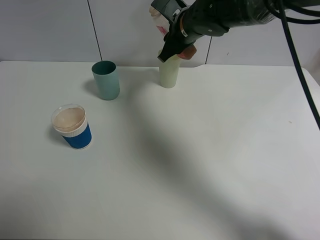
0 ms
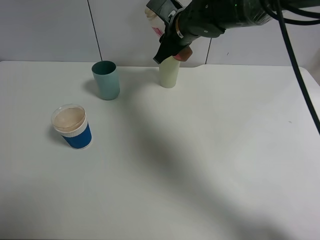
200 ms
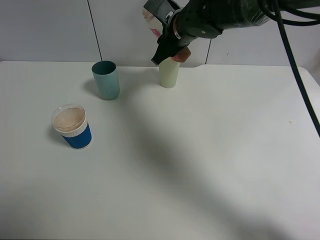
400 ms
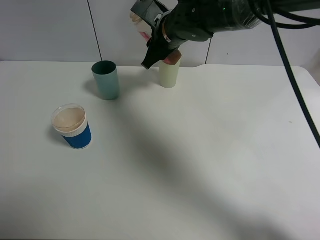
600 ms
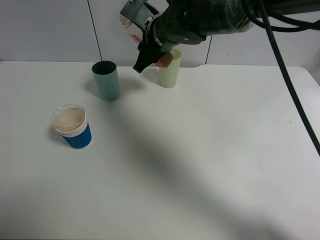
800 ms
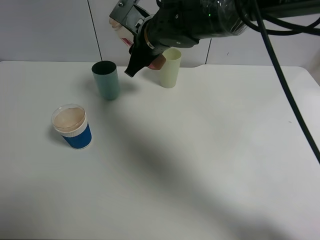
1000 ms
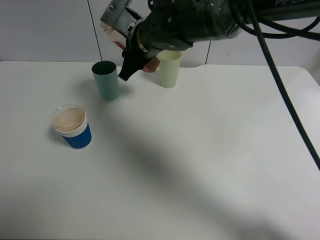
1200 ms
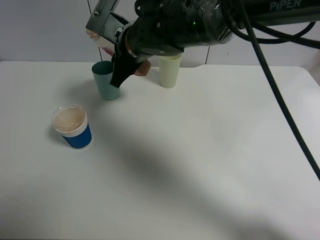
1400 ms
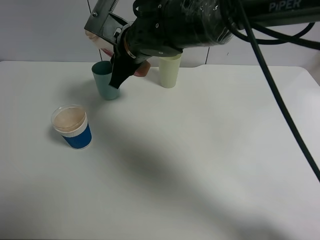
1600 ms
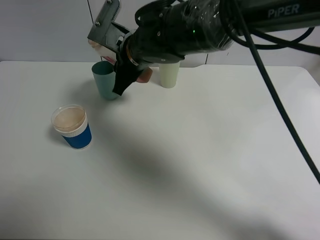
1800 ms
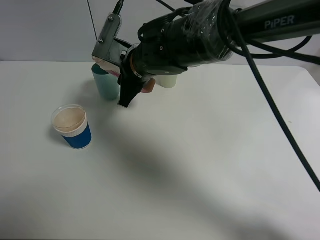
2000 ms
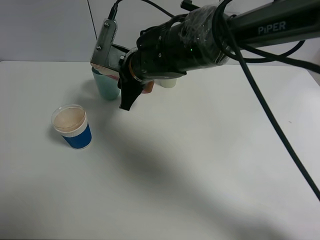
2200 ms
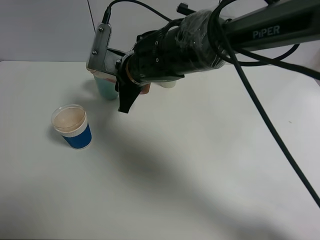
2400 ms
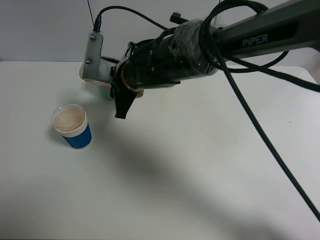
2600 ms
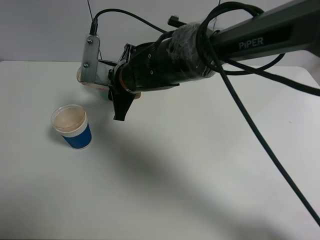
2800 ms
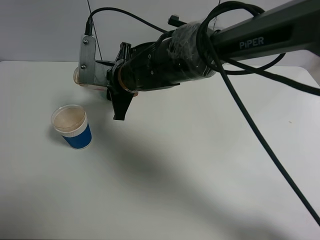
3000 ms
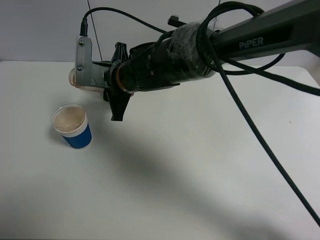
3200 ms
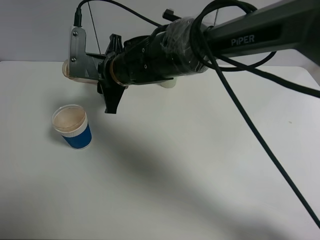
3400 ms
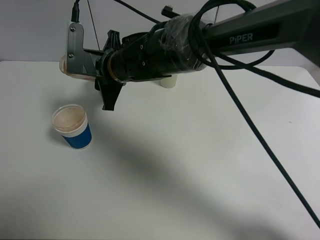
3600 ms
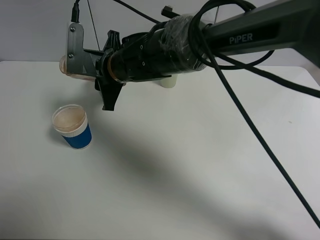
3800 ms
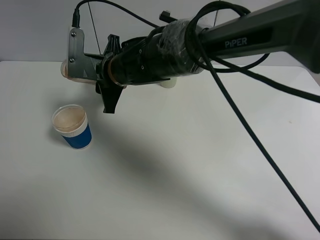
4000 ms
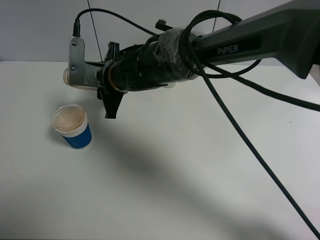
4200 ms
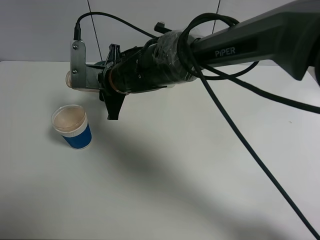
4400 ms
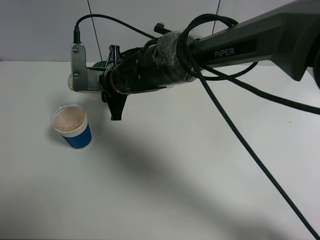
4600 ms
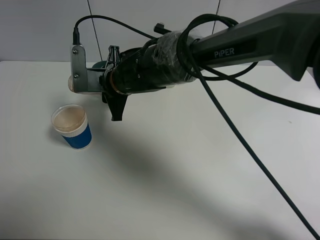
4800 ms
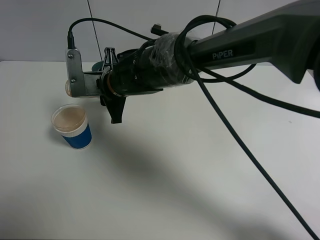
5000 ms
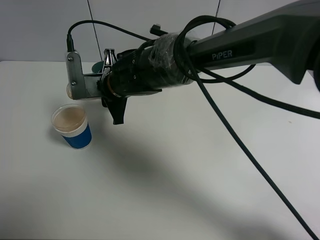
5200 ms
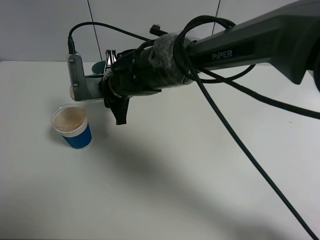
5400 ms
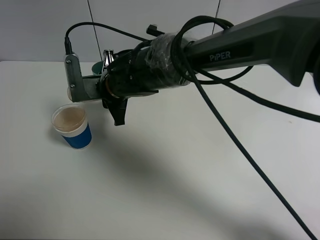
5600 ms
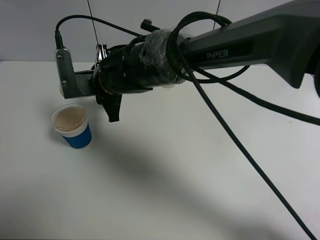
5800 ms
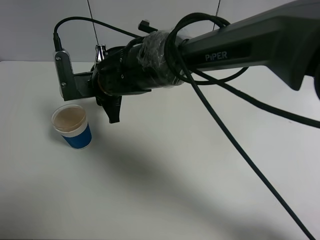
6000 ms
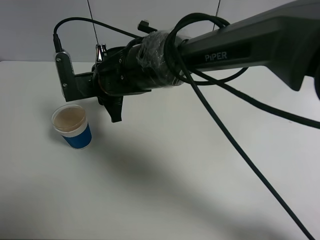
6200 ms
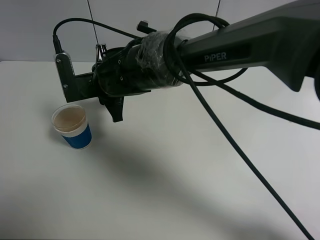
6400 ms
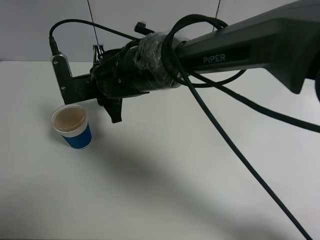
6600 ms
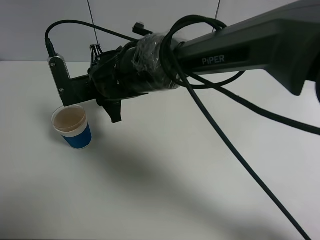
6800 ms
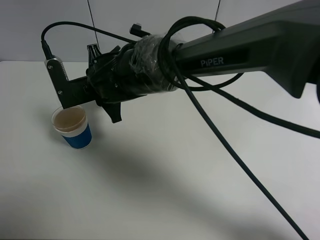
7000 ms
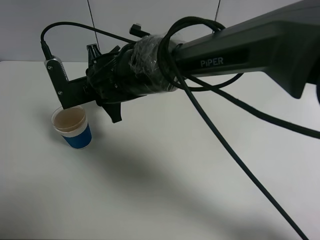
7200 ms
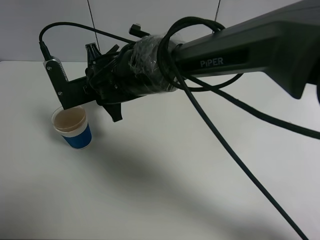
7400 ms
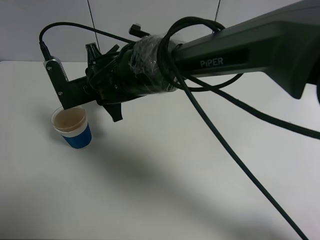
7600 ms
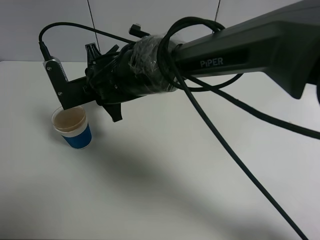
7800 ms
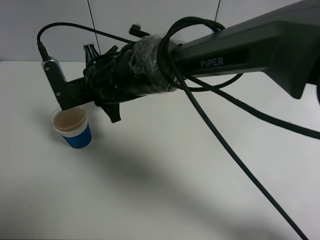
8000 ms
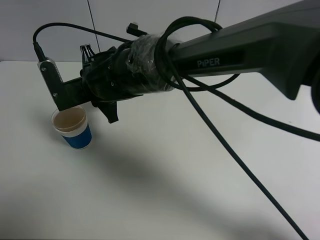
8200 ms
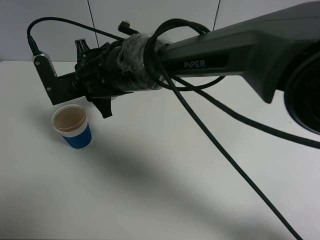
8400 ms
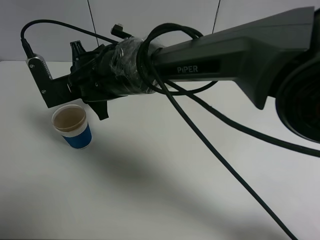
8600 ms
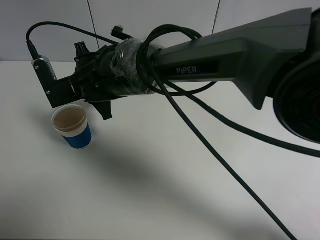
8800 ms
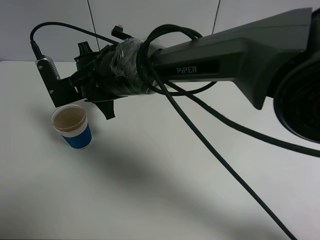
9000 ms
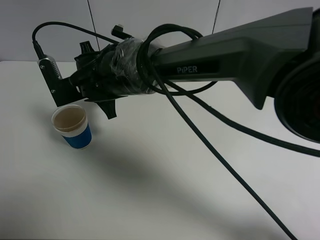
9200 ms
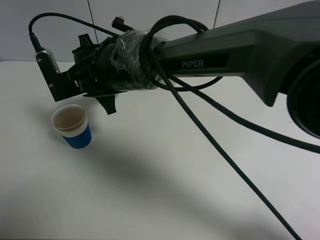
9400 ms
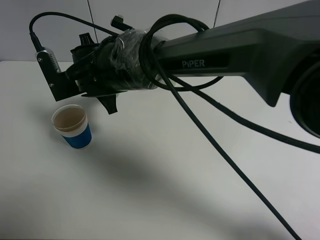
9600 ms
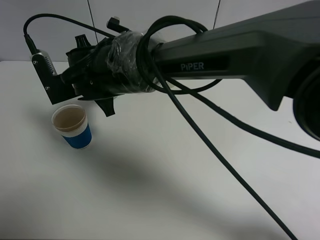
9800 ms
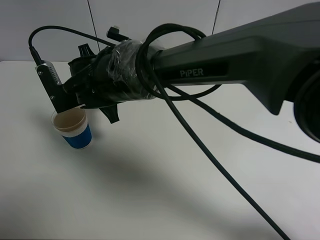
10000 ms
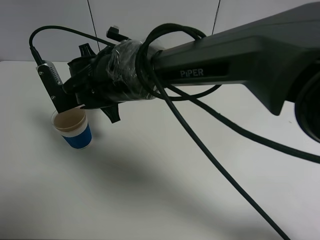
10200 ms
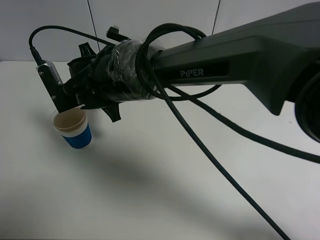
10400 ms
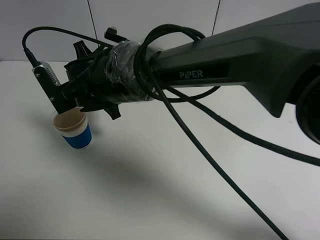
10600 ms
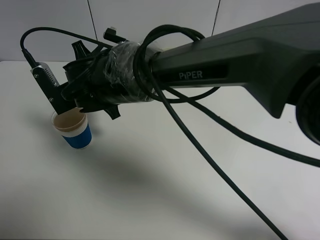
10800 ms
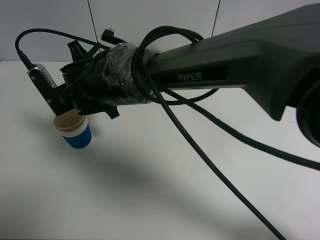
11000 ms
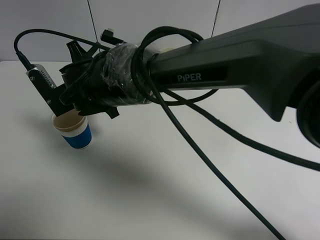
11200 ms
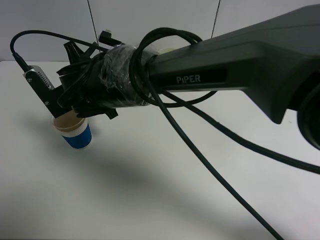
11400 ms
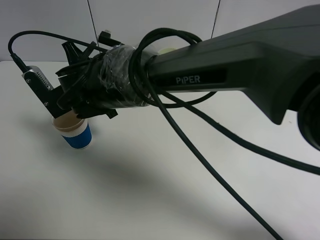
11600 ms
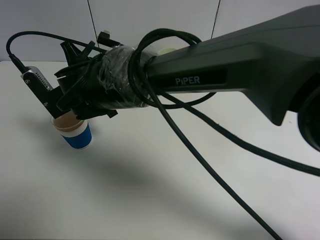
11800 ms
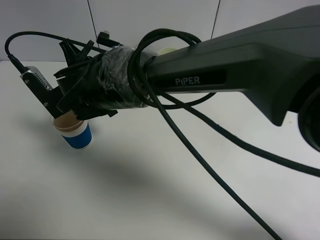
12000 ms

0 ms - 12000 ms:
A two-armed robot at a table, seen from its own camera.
Task of the whole recording: use a clamp to hold the bottle of the drink, pour the beverage into a random cup, then clamp the cup containing the drink and pour the drink into another random cup.
0 ms - 1600 ms: The right gripper goes about 15 cm to the left and backward.
1600 ms - 3000 ms: The right gripper heads downward, covering approximately 5 cm.
3000 ms - 6000 ms: The grippers stay close to where they were, moving slightly.
6000 ms - 7600 ms: The grippers move only a little.
9000 ms - 10400 ms: The grippers stay close to where they were, moving slightly.

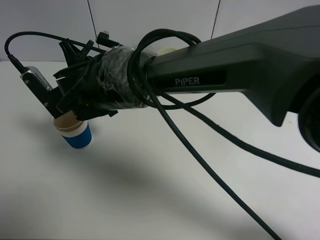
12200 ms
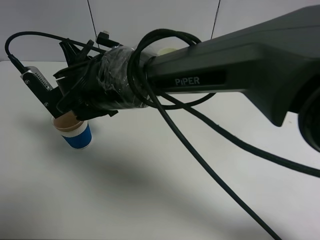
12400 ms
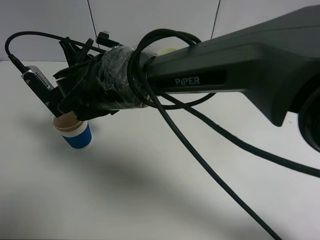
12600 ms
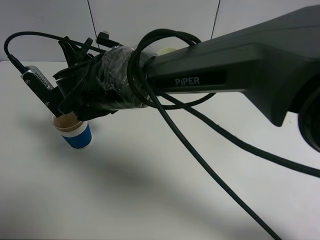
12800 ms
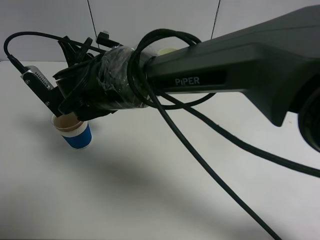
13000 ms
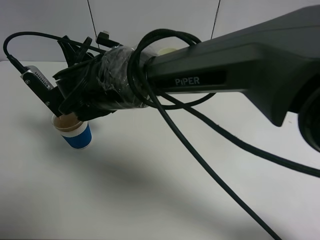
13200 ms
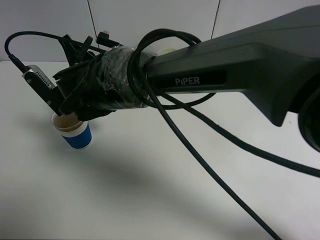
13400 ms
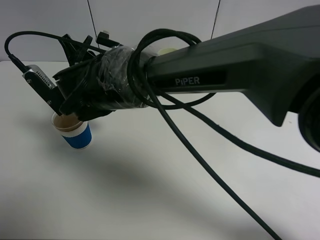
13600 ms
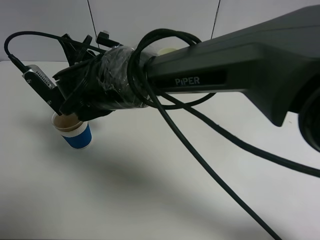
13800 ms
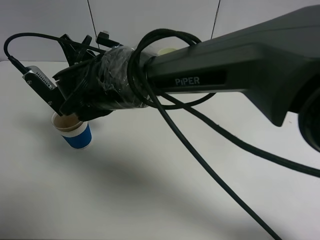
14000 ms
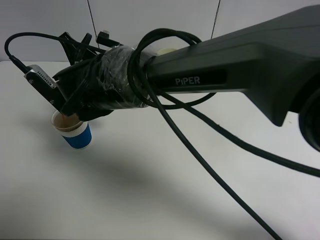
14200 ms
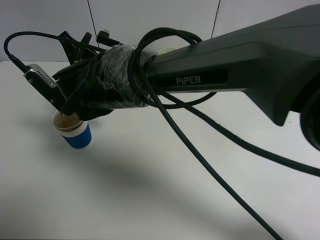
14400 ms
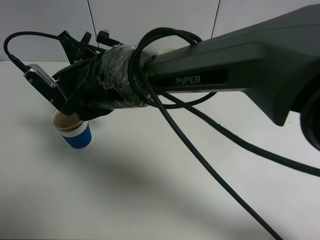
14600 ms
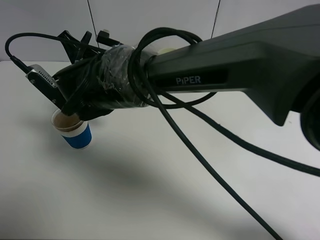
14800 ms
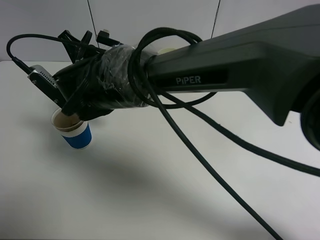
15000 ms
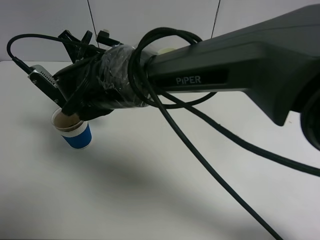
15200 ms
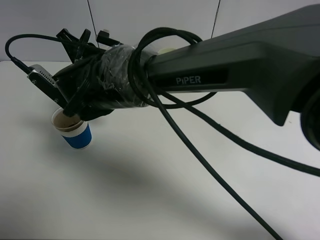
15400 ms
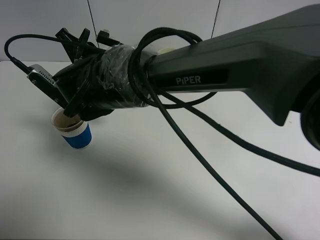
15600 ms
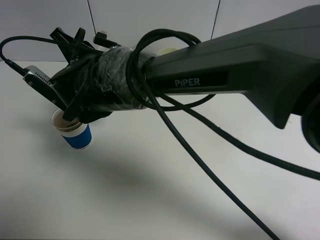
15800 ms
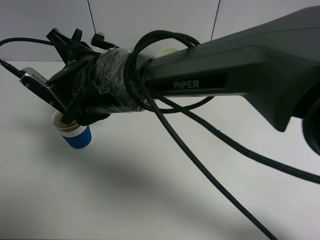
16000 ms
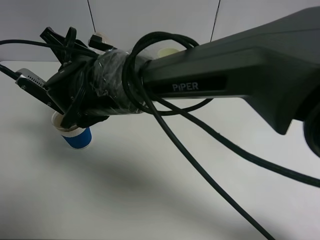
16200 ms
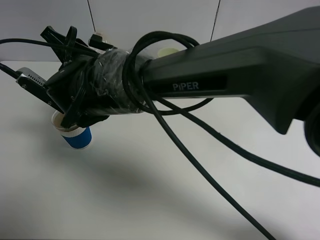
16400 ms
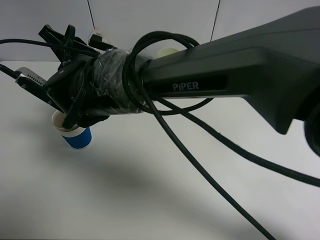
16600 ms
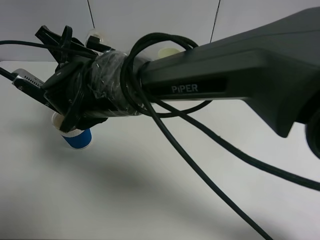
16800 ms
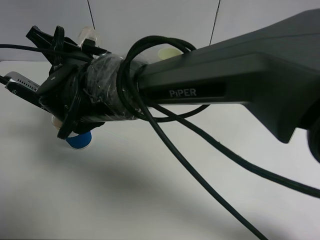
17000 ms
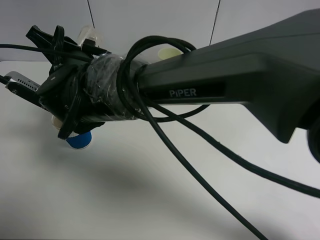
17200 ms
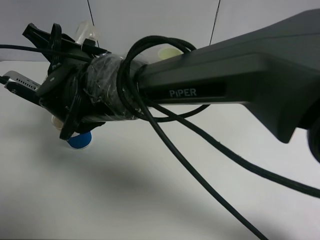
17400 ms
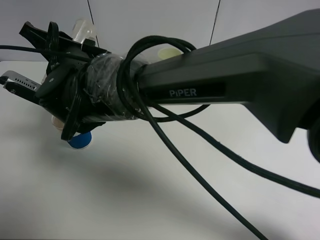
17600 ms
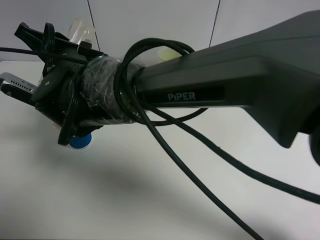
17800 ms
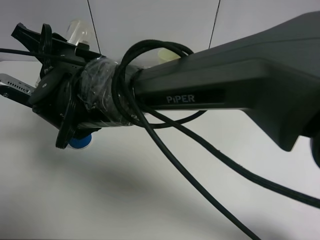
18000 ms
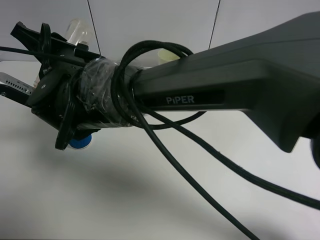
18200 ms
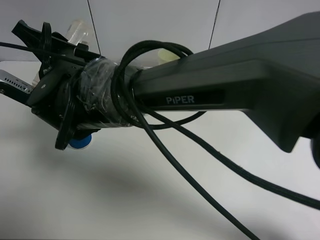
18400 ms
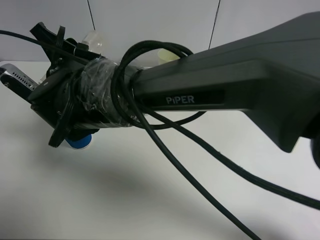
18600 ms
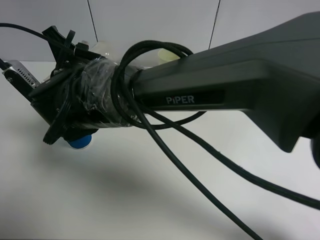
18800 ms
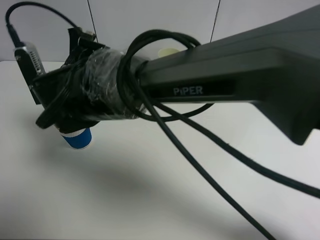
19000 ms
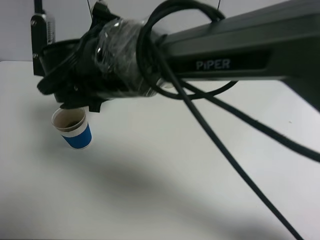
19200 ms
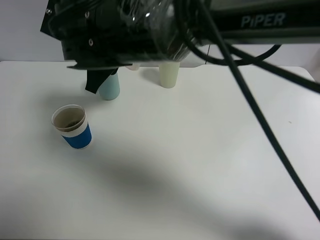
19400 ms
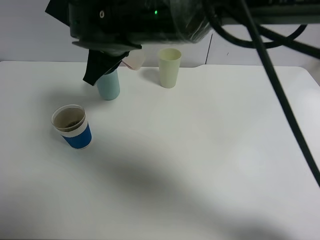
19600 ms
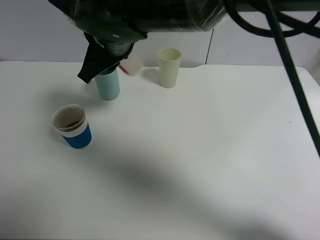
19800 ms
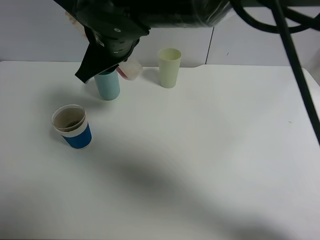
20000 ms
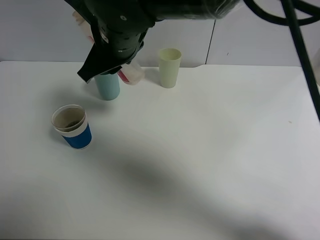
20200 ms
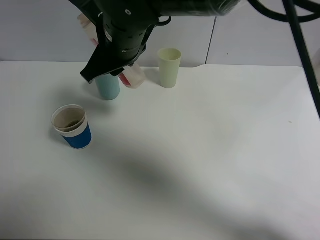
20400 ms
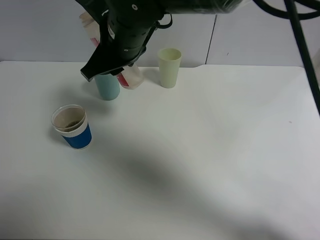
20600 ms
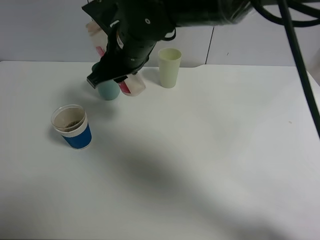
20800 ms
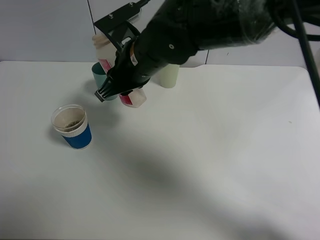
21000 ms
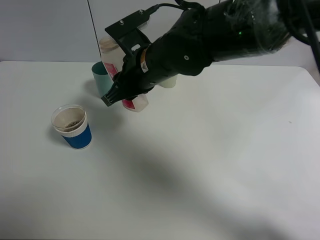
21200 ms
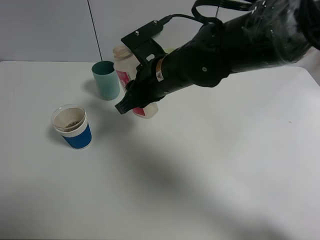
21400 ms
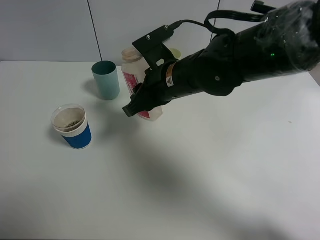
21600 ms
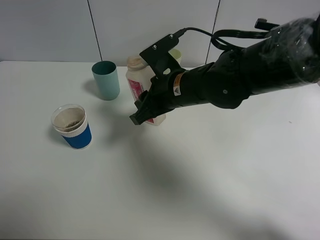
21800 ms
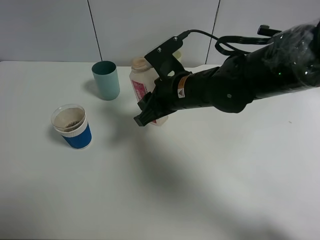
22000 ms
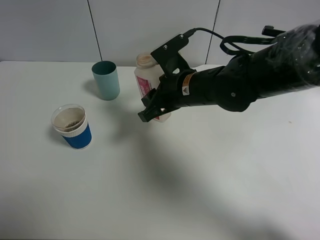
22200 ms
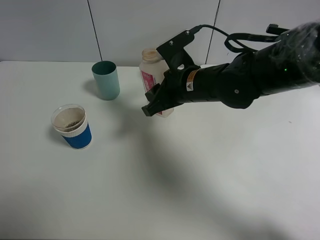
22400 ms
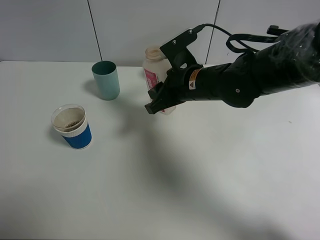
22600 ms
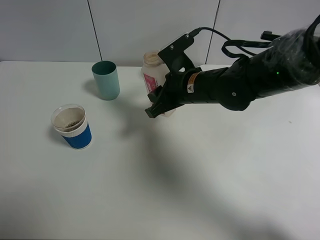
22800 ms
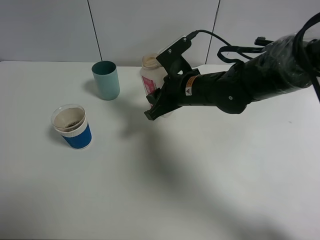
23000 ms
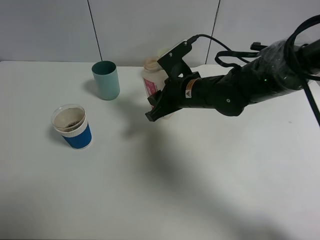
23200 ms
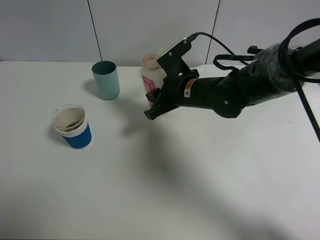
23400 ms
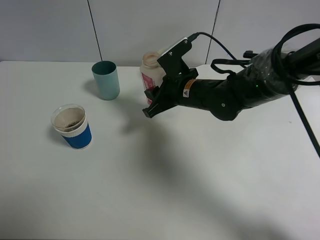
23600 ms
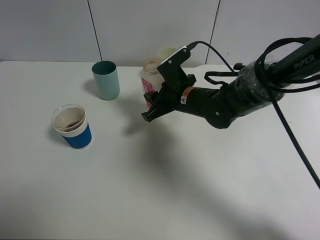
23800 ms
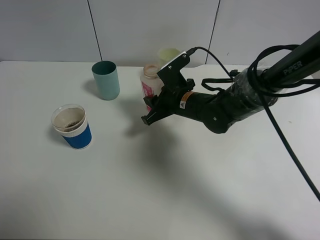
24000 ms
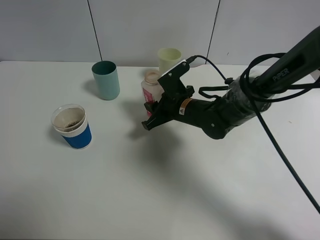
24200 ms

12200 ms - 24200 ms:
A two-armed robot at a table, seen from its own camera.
Task of the whole recording: use a clamp to hold the bottle of the drink, pour the beverage into a random cup, then clamp the cup containing the drink and pour the drink into another random cup.
Step, 12200 ms - 19200 ms: Pour the drink into the paper cup with right gripper.
12200 ms - 15200 ms: There are only small adjustments of the grippers.
15200 ms - 16600 ms: The grippers make only small movements.
18200 ms - 19800 ms: The right gripper travels to the right and upward by about 10 cm.
19800 ms - 21200 ms: The right gripper shifts about 10 cm to the right and downward.
21200 ms - 22600 ms: The right gripper travels to the right by some 10 cm.
22600 ms - 24200 ms: The right gripper moves downward, approximately 10 cm.
